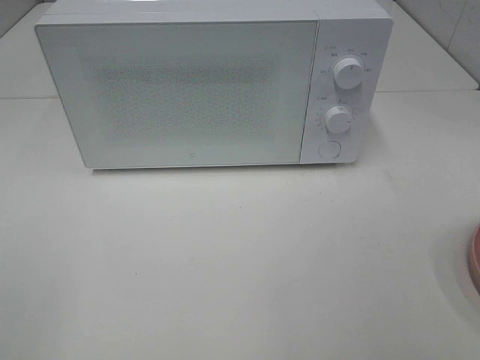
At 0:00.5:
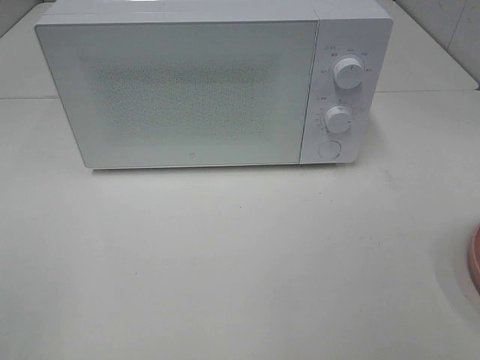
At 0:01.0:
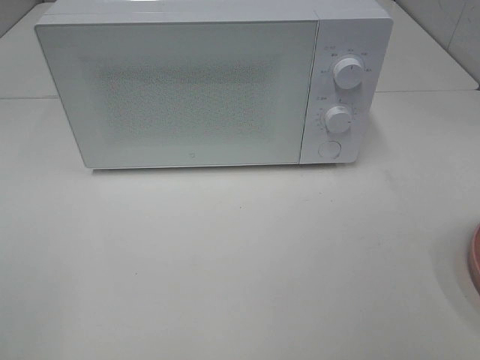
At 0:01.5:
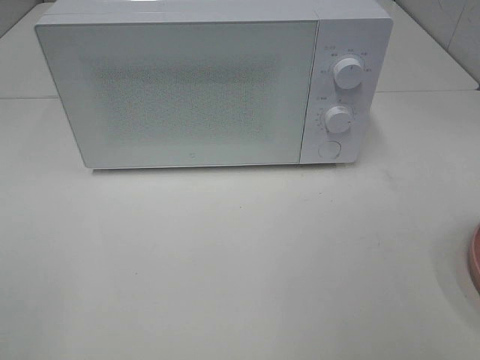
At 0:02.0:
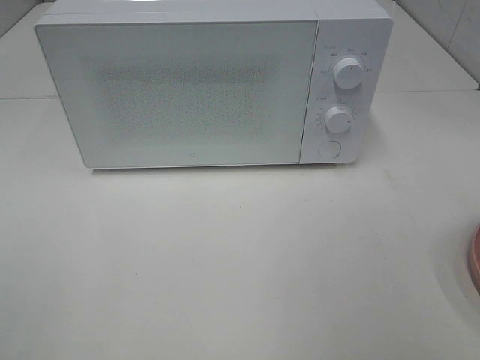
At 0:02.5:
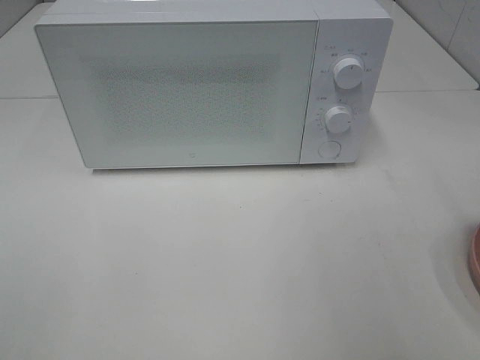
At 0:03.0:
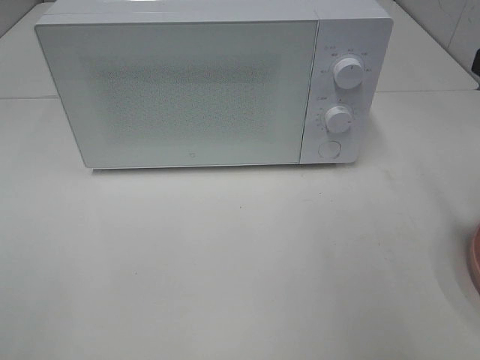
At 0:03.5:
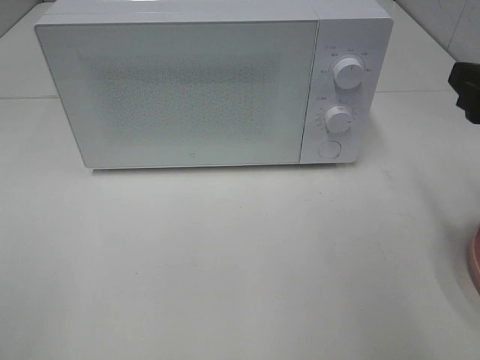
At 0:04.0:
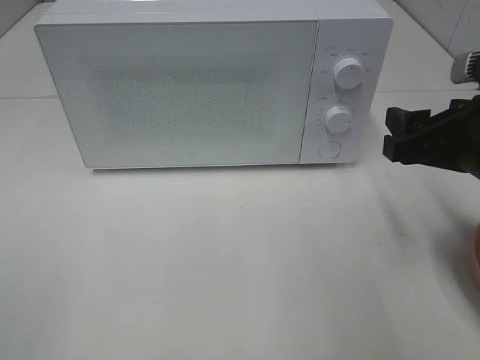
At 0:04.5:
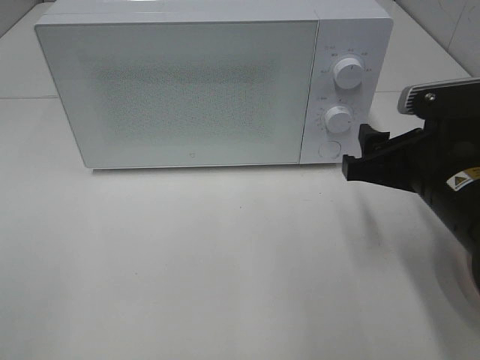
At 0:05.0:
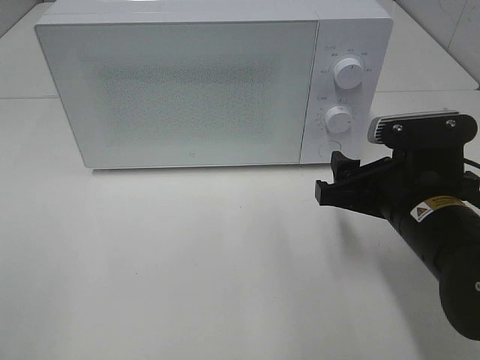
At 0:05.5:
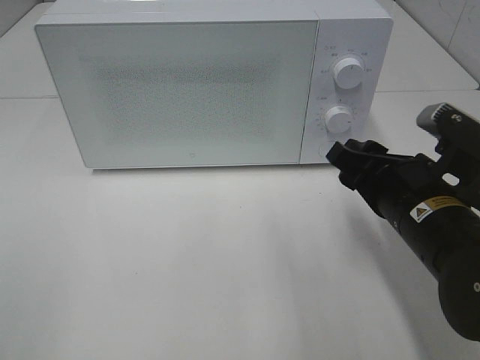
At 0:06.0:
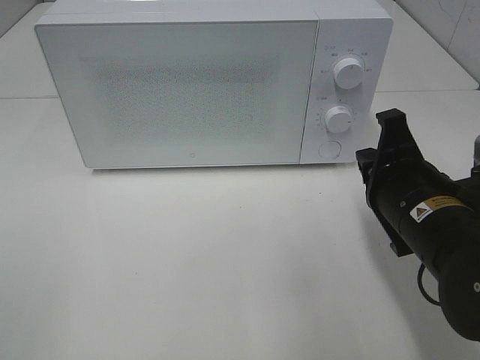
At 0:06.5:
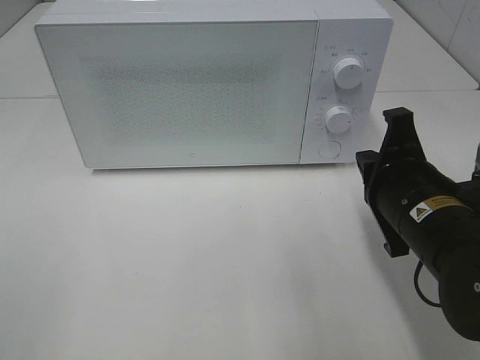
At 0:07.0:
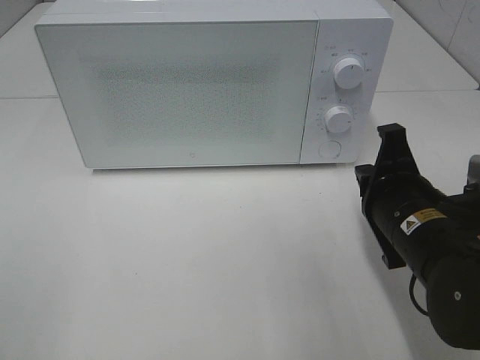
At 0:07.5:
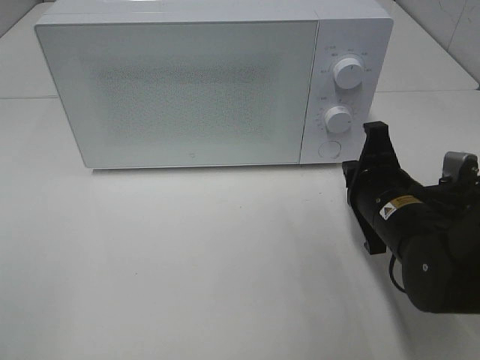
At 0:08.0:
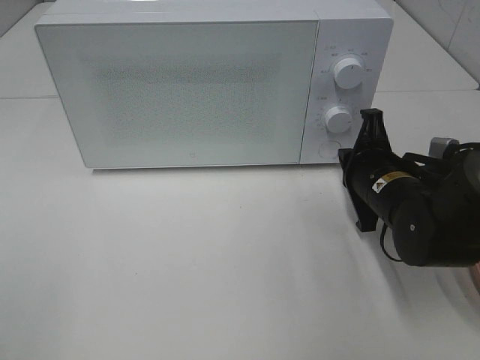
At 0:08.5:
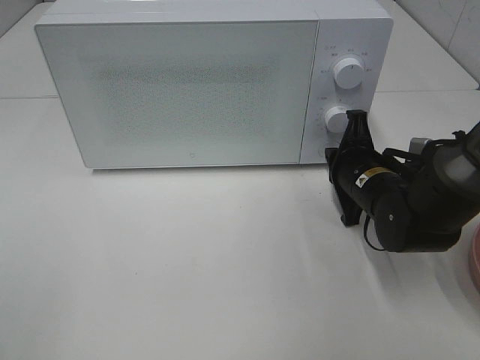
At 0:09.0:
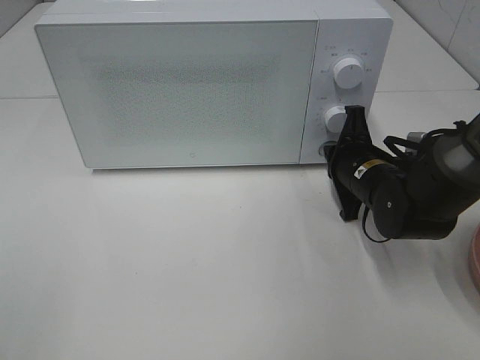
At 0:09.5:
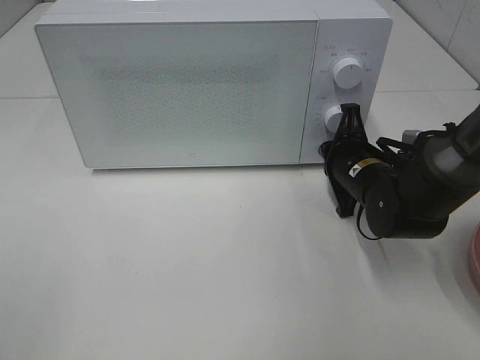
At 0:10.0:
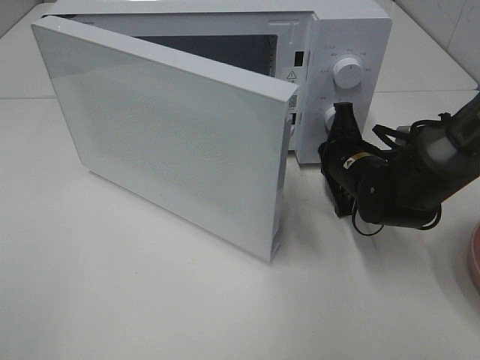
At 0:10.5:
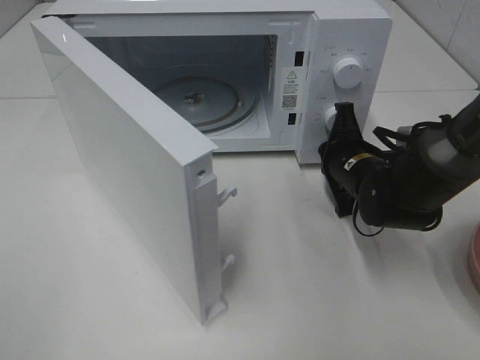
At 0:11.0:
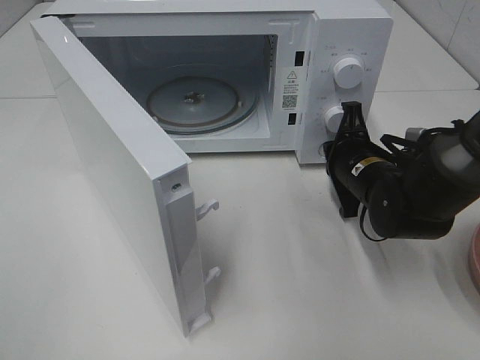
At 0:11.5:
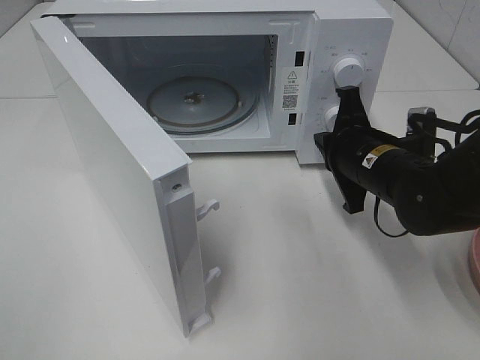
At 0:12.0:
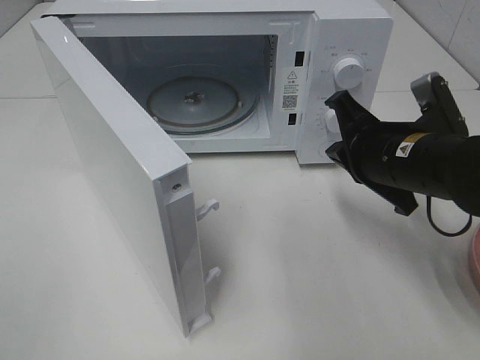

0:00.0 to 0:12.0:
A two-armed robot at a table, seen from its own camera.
Task of the whole recording: Heat the burger.
Step, 0:00.0 to 0:11.0: Right hand: press the switch.
0:02.0 to 0:04.0: The right gripper shifts some 20 cm forward and downward.
0:04.0 to 0:06.0: The right gripper moves to the left and downward, about 10 cm, and closes.
0:06.0 to 0:08.0: The right gripper goes roughly 10 cm forward and downward.
0:08.0 to 0:10.0: The right gripper heads forward, covering approximately 5 cm.
0:10.0 to 0:12.0: The right gripper goes some 10 cm upward and backward.

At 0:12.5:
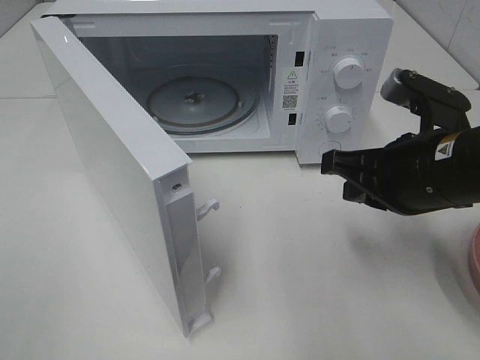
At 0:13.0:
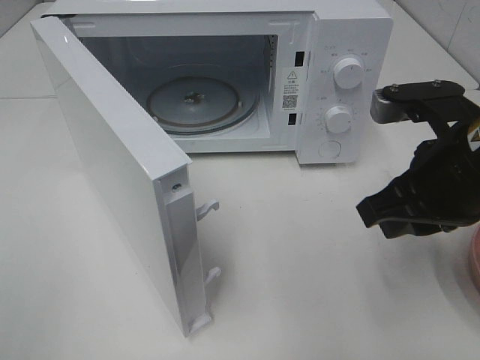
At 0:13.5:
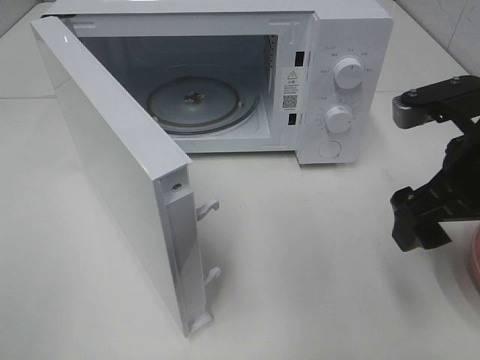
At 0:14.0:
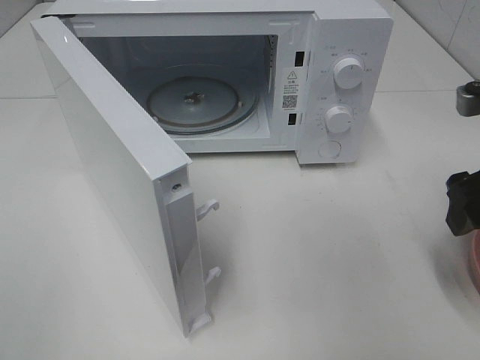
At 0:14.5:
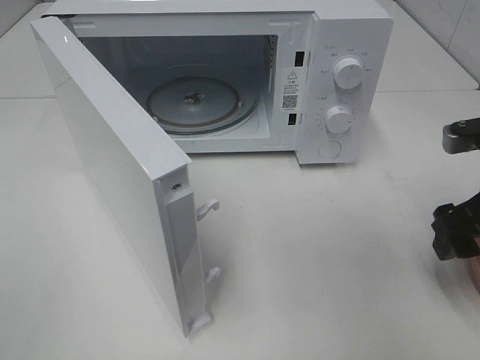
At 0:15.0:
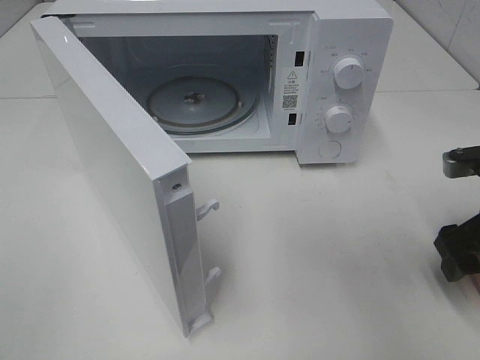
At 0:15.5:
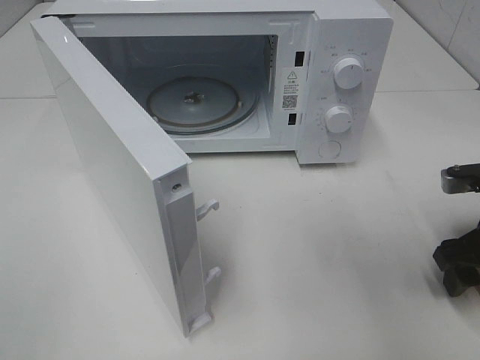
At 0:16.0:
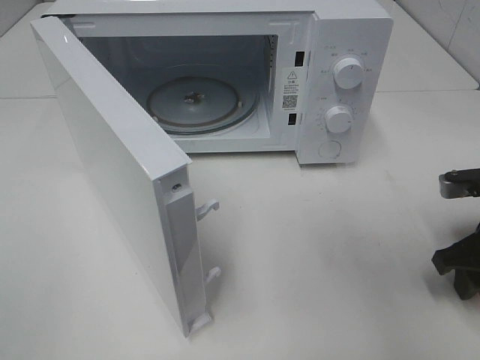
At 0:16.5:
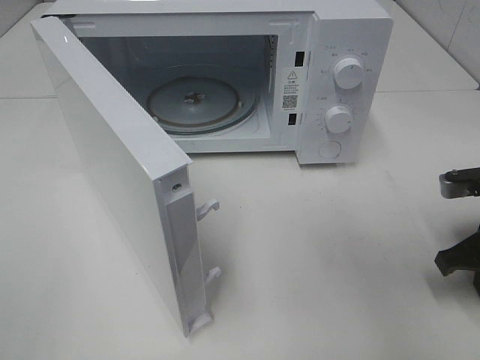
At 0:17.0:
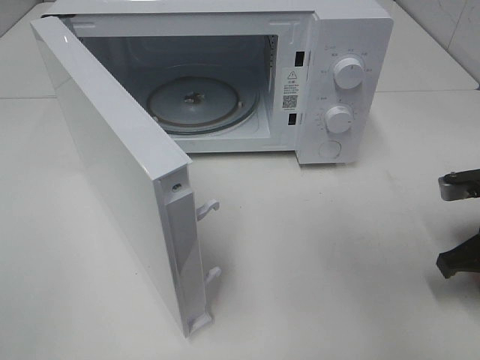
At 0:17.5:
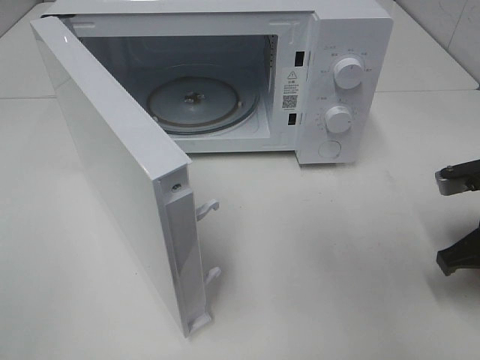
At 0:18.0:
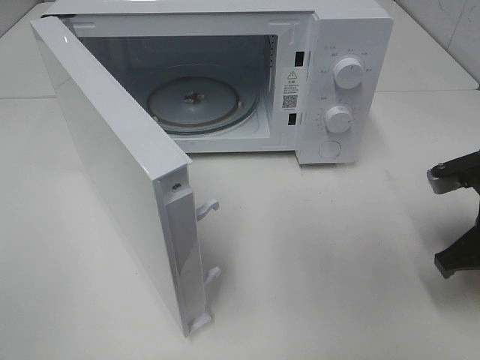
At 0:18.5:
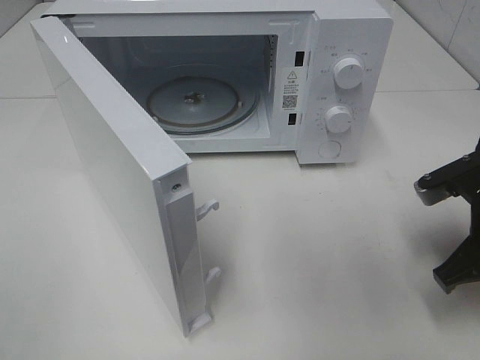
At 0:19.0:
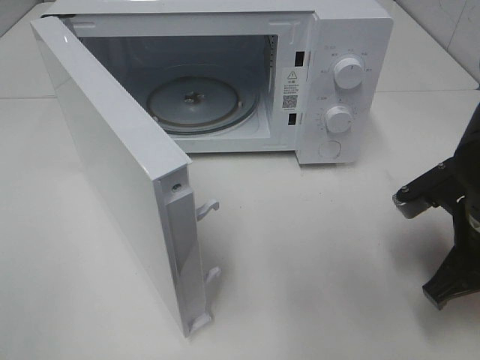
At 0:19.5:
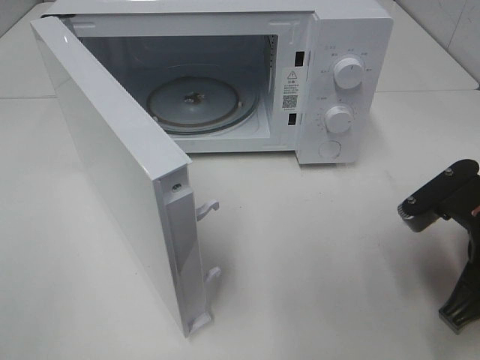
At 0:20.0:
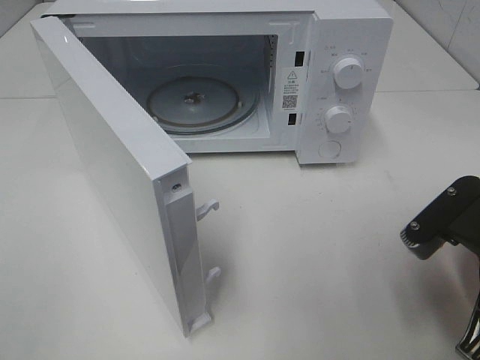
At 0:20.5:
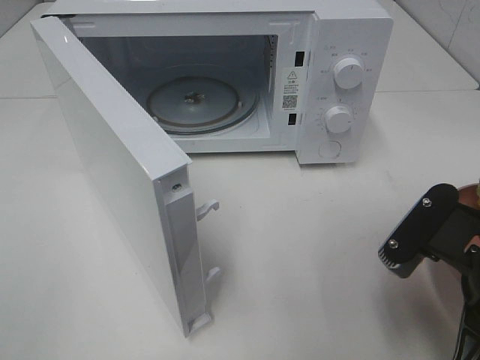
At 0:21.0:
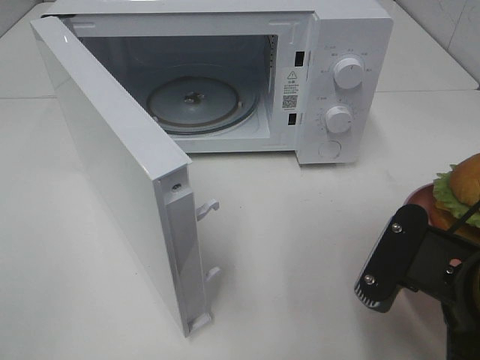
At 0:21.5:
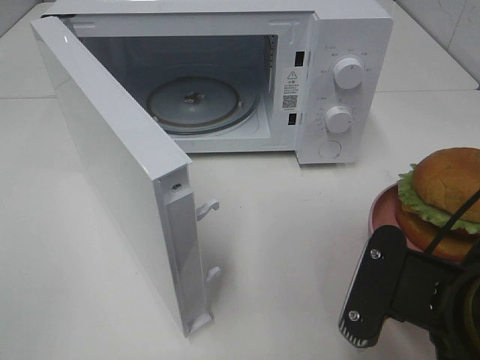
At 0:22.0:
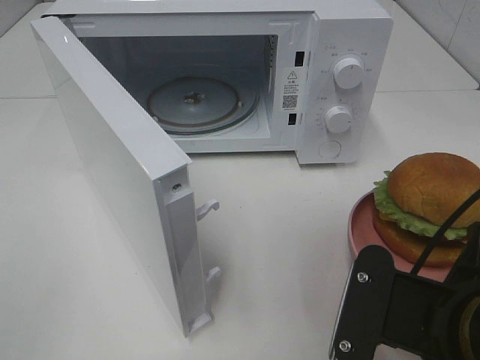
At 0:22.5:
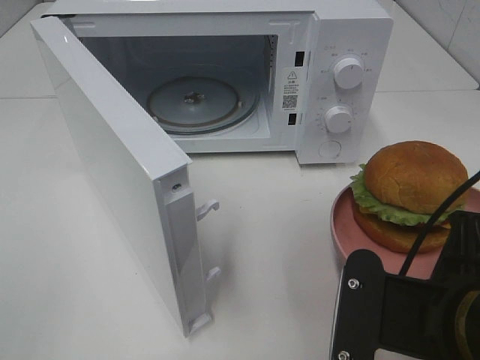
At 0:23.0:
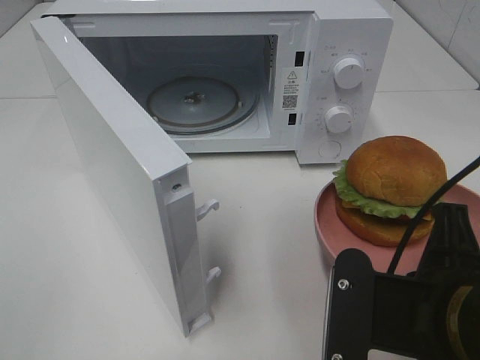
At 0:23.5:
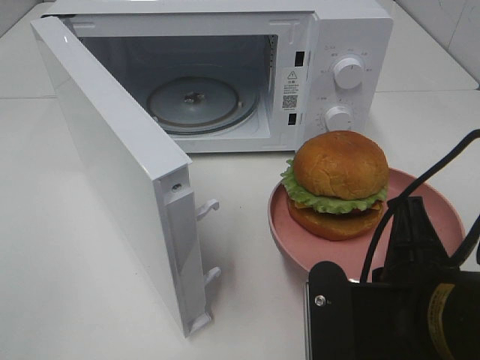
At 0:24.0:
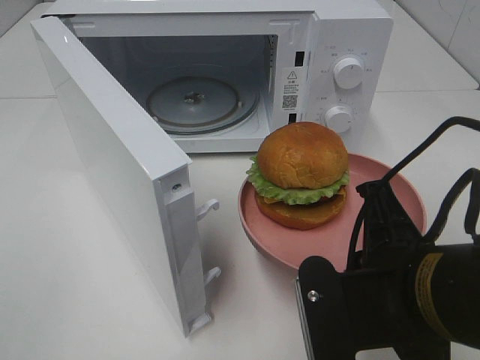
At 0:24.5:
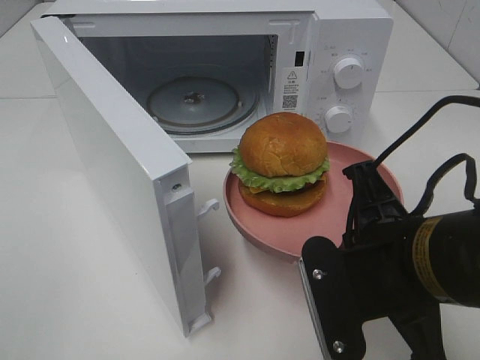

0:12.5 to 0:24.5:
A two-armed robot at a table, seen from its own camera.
Task of the whole recording: Heat the burger.
Step, 0:12.5 to 0:16.5: Right hand: grab the plate with the hamburger.
0:12.5 to 0:14.5: The right gripper goes about 10 cm to the right, and opens its fingers.
0:14.5 to 0:16.5: The right gripper heads downward, covering about 5 cm, and closes up.
0:16.5 to 0:18.5: The right gripper moves to the left, about 5 cm.
0:18.5 to 0:20.5: The right gripper is displaced backward and to the left by roughly 10 cm.
0:20.5 to 0:22.5: The right gripper changes place by some 5 cm.
0:22.5 to 0:24.5: The right gripper changes place by about 5 cm.

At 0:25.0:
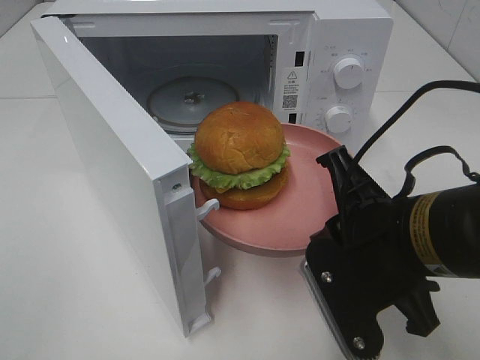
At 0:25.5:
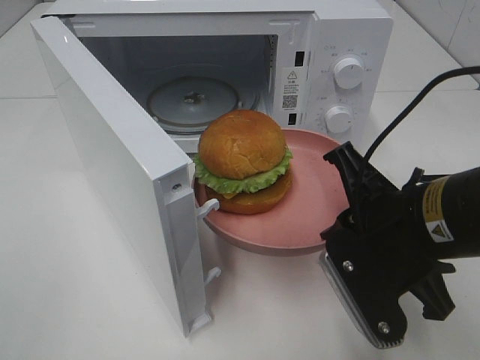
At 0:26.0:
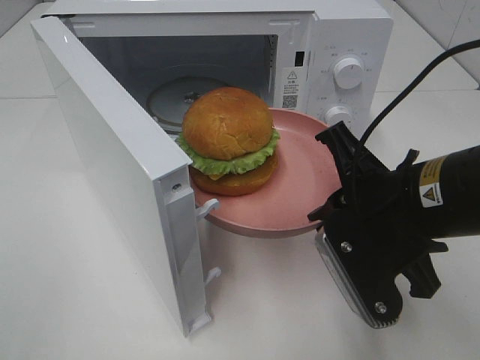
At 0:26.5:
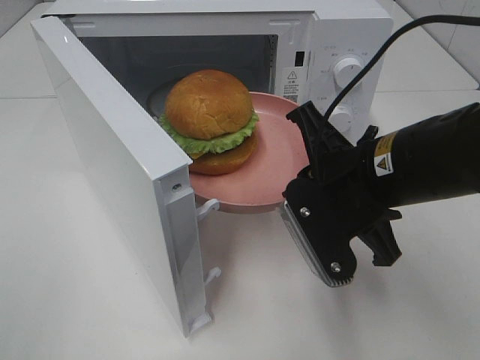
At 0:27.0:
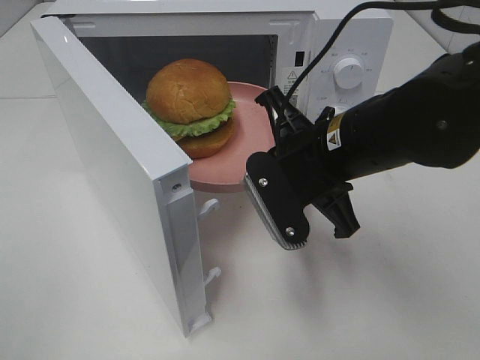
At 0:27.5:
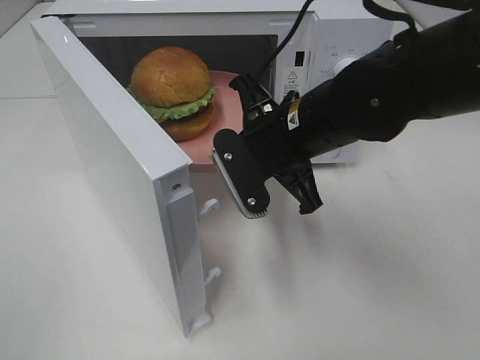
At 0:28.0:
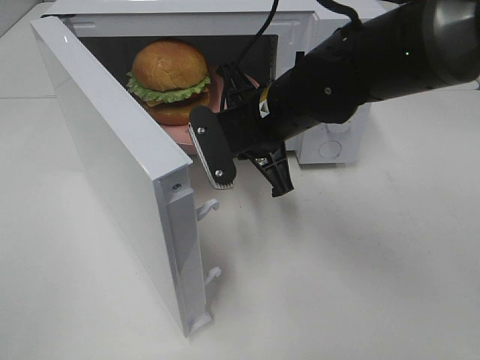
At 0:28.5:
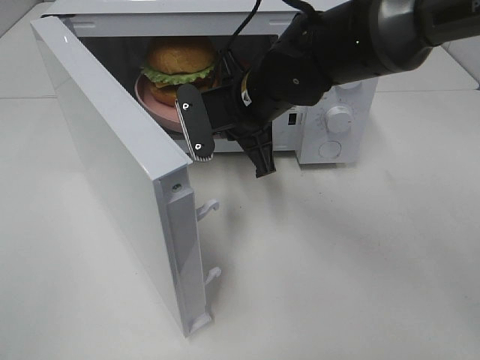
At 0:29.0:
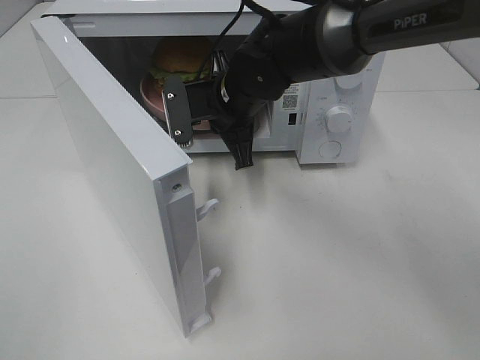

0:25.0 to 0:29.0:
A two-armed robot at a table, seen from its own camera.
Task of the whole recording: Heat the burger.
0:25.0 to 0:27.0: The right gripper shifts some 10 cm forward.
0:27.0 to 0:29.0: The right gripper moves forward and to the left, approximately 15 cm.
